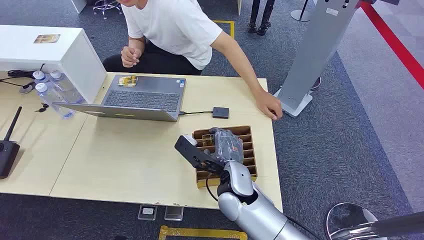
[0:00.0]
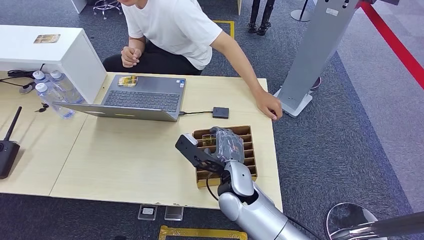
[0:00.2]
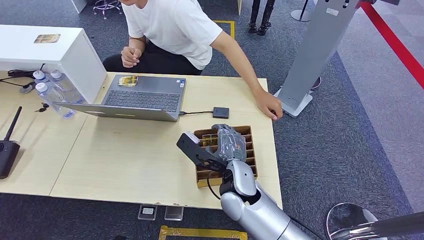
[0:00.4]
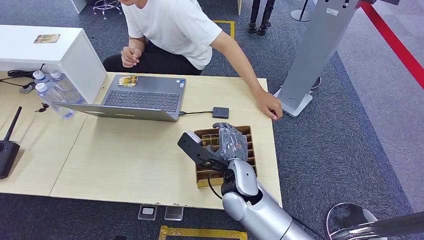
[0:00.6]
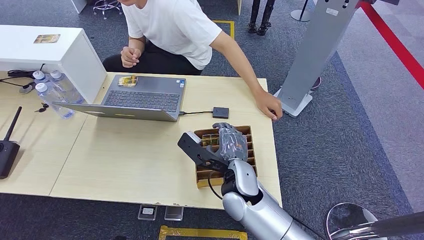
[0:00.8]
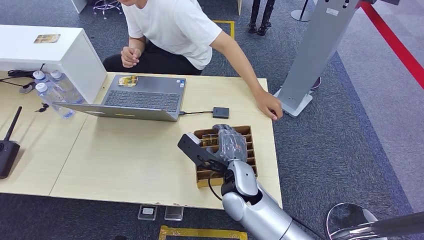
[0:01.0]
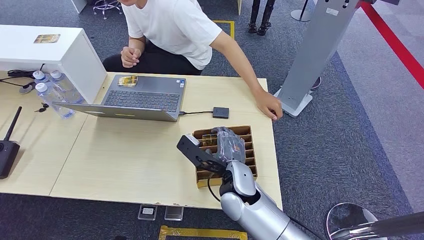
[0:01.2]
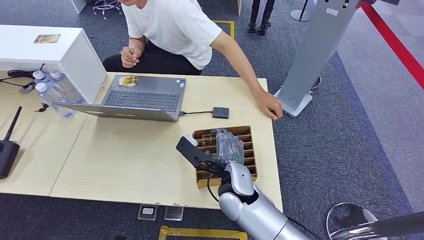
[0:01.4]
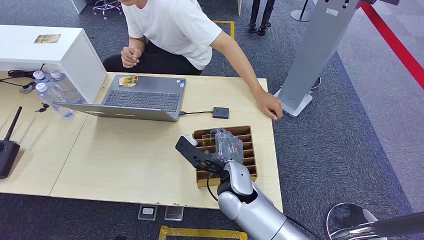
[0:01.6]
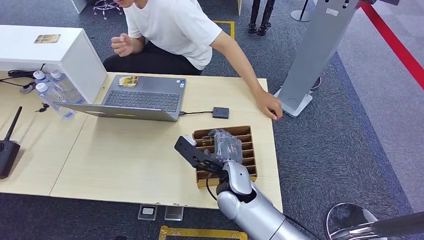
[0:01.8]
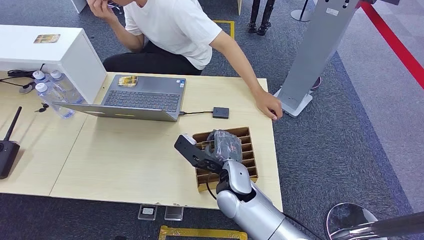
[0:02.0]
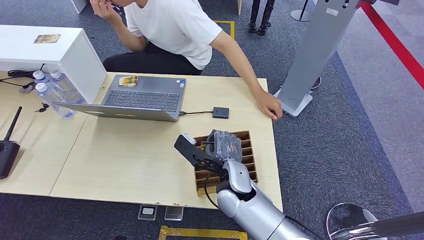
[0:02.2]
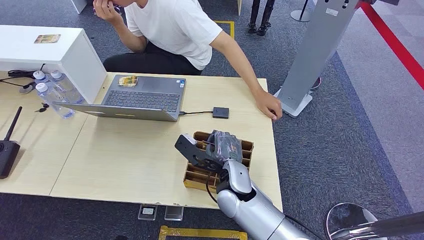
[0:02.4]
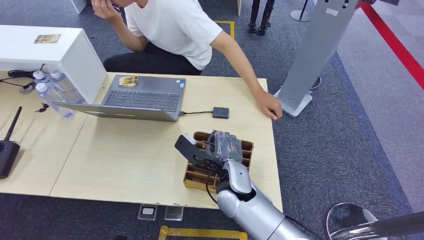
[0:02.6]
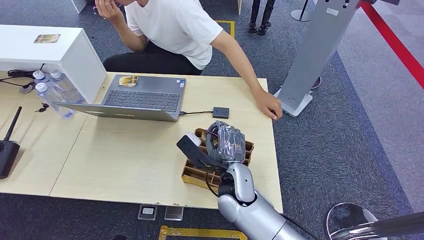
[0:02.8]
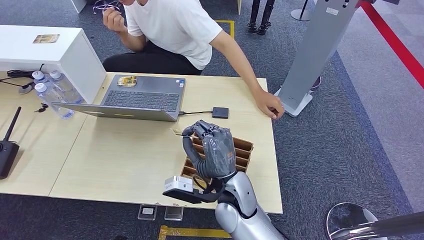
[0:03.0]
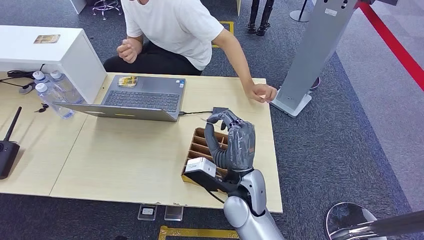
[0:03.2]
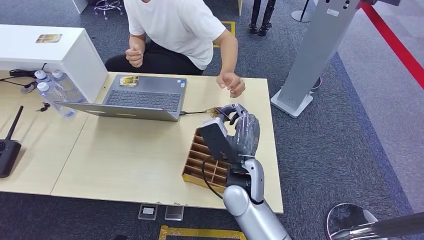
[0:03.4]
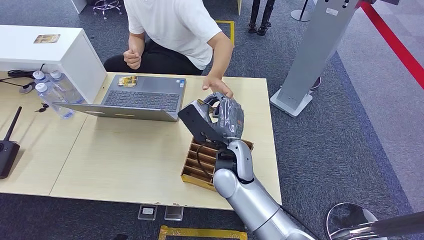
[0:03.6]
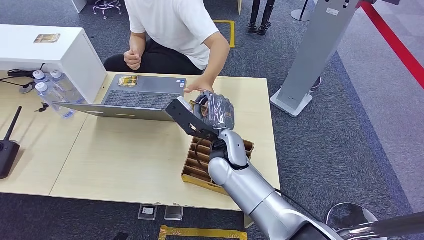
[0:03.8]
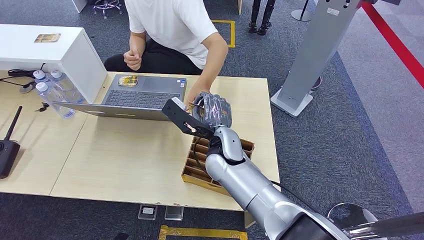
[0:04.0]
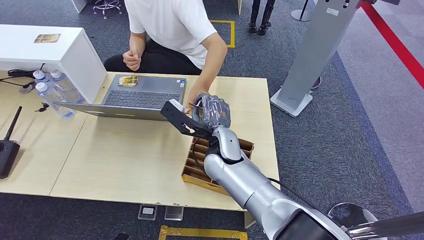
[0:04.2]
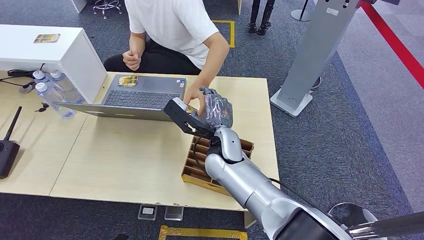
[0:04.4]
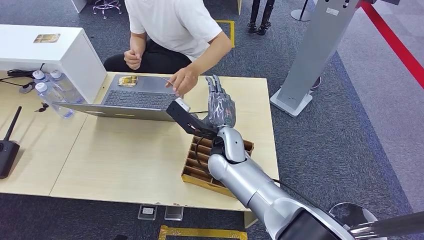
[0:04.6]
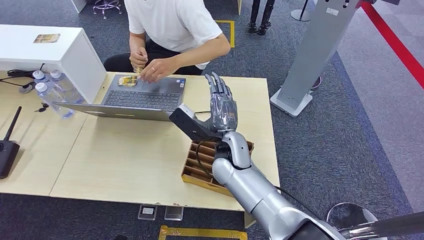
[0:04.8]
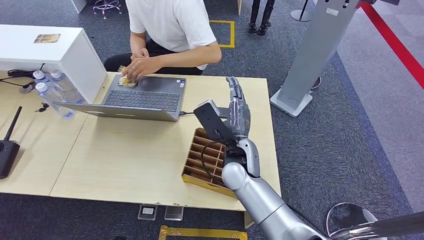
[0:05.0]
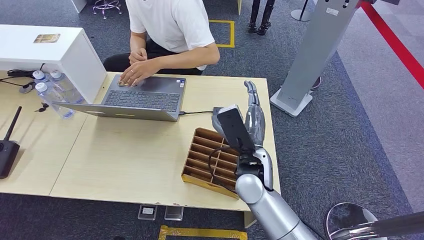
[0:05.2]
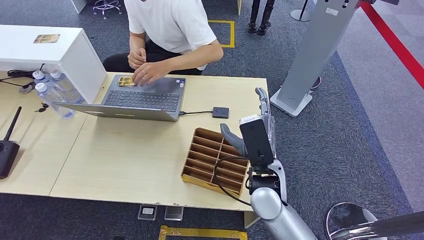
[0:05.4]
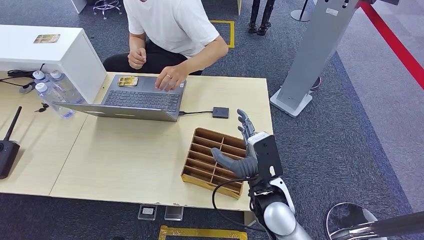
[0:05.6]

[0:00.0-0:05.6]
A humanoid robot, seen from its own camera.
Step, 0:00.0 to 0:03.2: Pick up the room card from the card holder.
Step, 0:03.4 to 0:05.6: Hand the room card to the target.
0:01.4 to 0:02.8: There are only small adjustments of the hands.
0:02.8 to 0:04.2: The right hand heads forward and upward, covering about 10 cm.
0:04.2 to 0:05.6: The right hand moves to the right and backward, some 15 cm.
